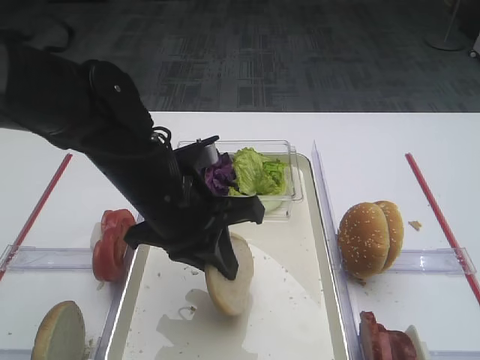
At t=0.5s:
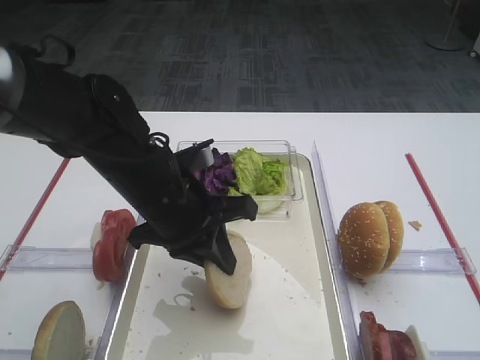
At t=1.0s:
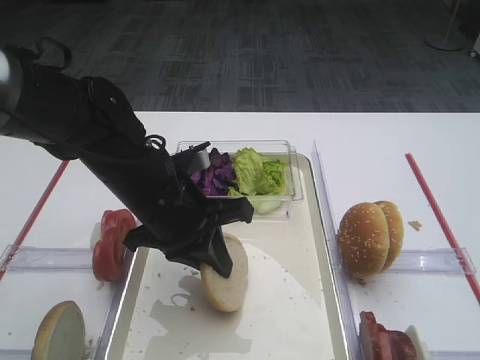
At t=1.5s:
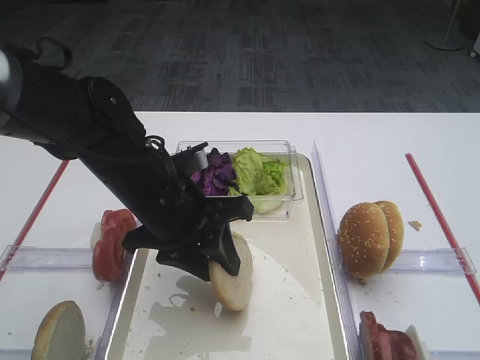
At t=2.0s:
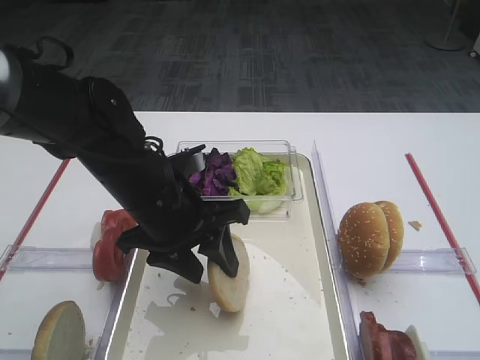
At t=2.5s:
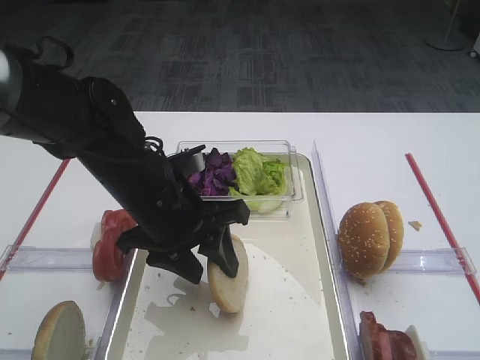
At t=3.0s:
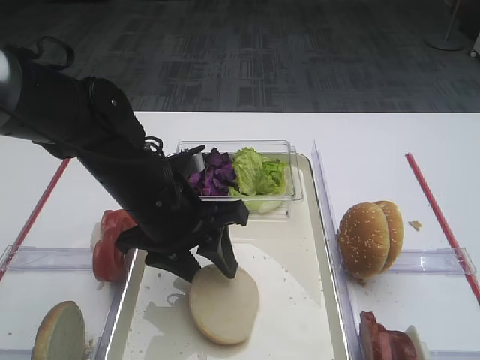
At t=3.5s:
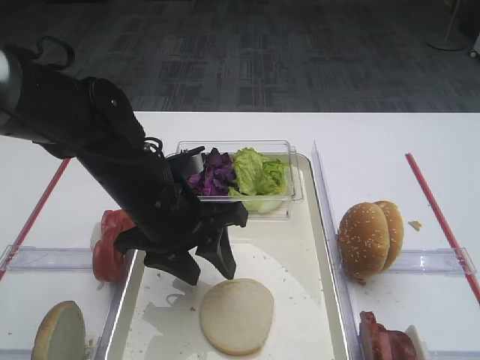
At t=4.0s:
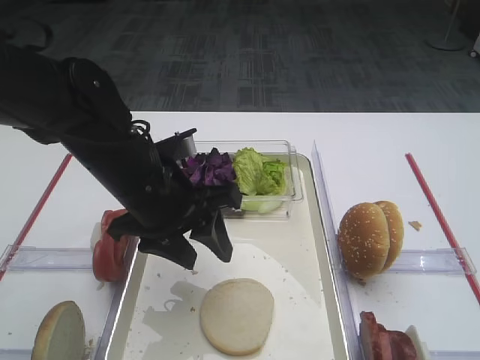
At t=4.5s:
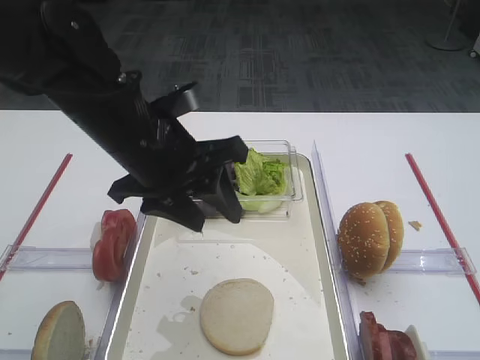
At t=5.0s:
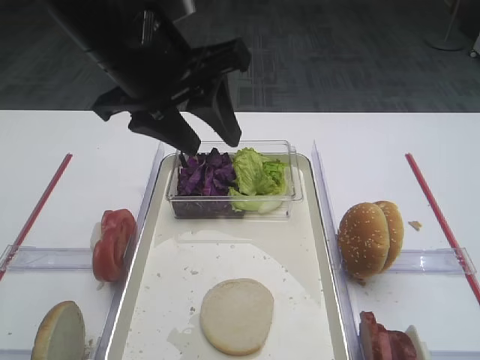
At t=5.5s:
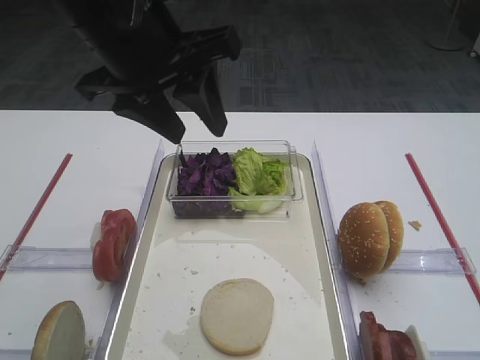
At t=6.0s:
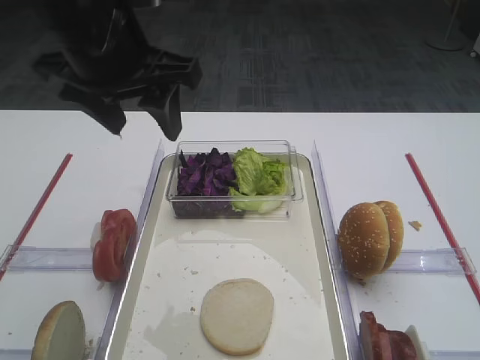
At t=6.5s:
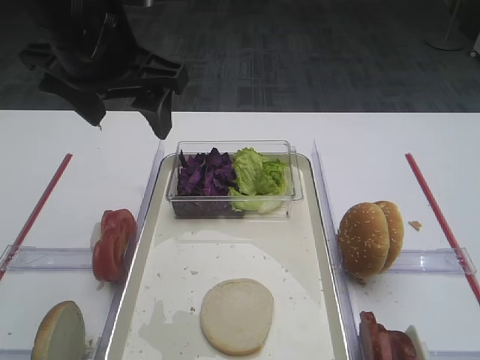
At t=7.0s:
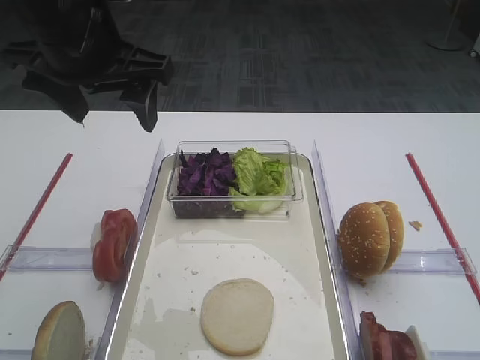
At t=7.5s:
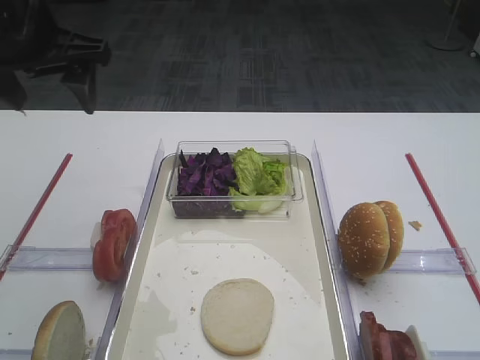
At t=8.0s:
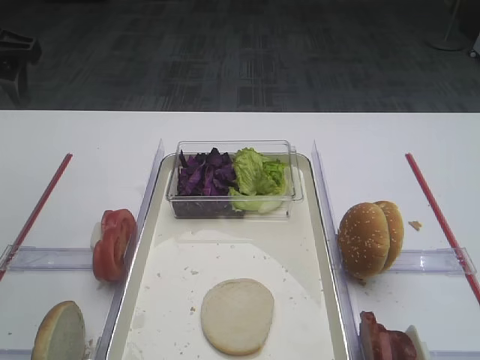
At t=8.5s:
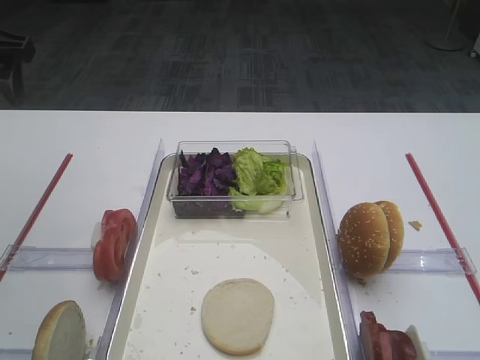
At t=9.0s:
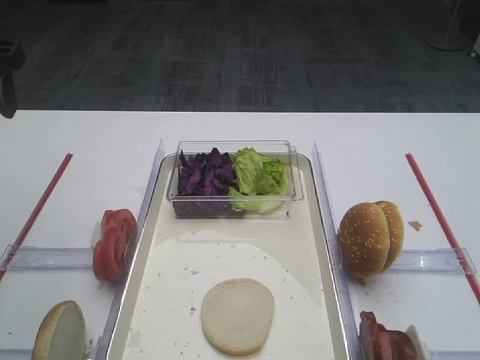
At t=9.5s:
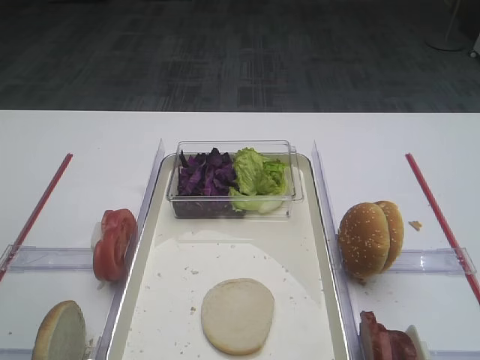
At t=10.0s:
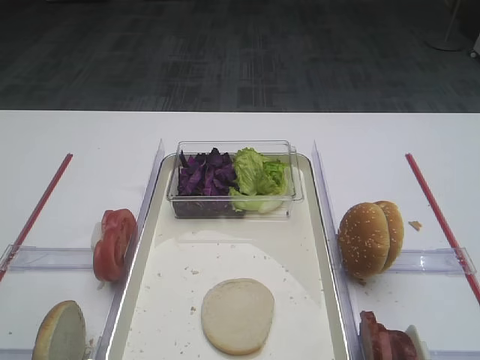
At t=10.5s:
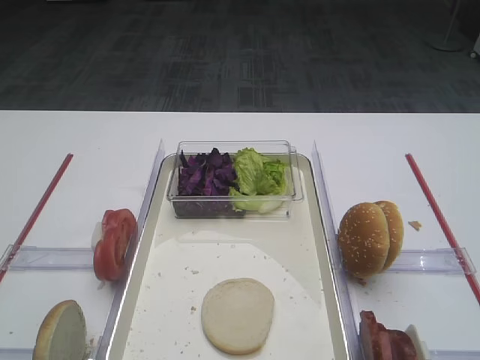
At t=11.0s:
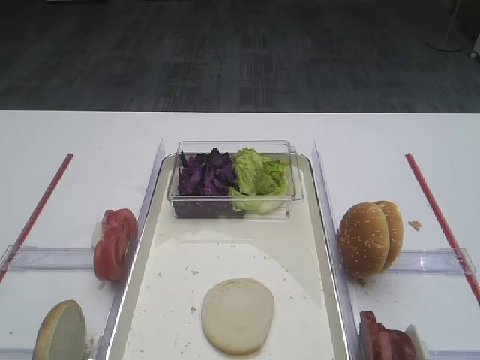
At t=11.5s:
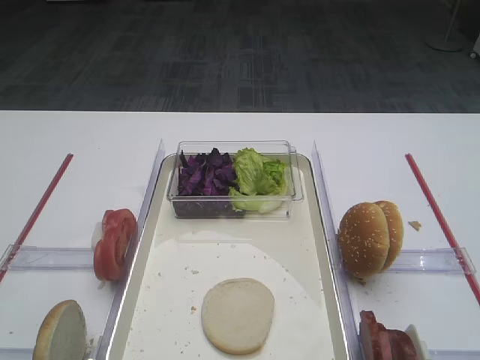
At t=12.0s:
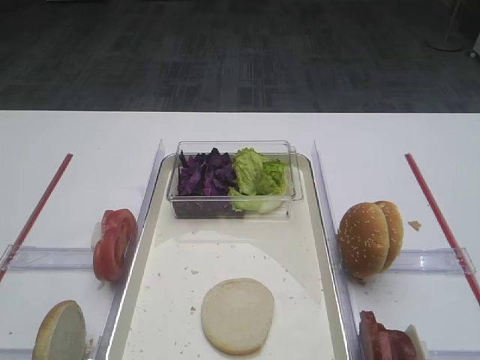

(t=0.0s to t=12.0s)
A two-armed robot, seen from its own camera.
Step, t=0.0s - t=4.0s: Place the bread slice on the tray with the left gripper.
t=0.0s - t=2.0s: The left gripper opens its fingers.
t=2.0s - t=4.0s: The grippers move only a little.
t=4.0s - t=6.0s: The left gripper is displaced upward by roughly 15 cm.
t=6.0s - t=8.0s: The left gripper goes approximately 15 cm to the left.
t=8.0s - t=10.0s: The left gripper shifts some 20 cm backward.

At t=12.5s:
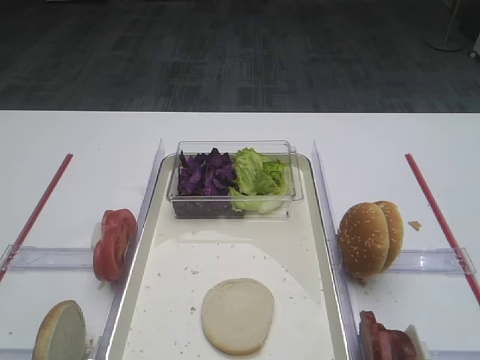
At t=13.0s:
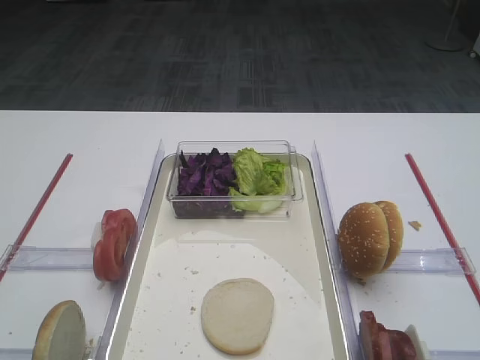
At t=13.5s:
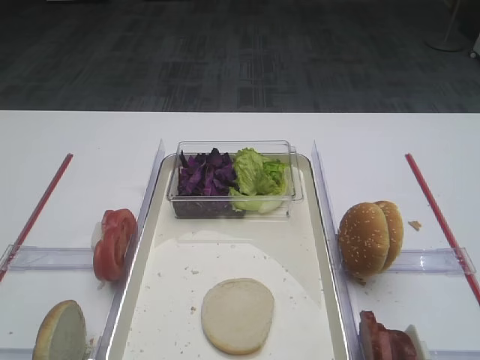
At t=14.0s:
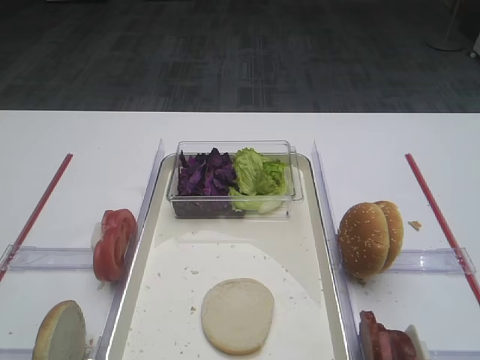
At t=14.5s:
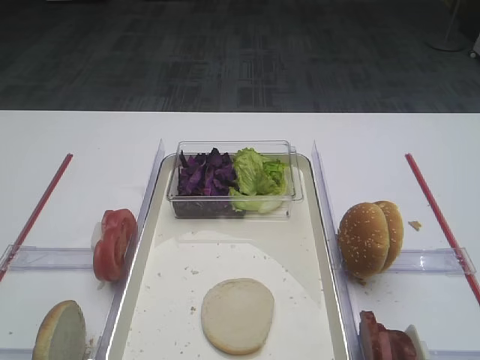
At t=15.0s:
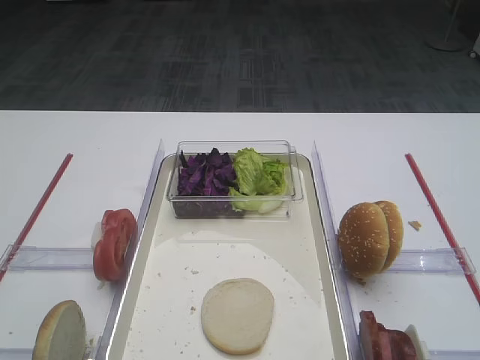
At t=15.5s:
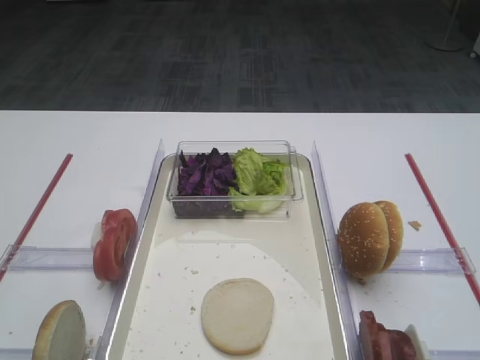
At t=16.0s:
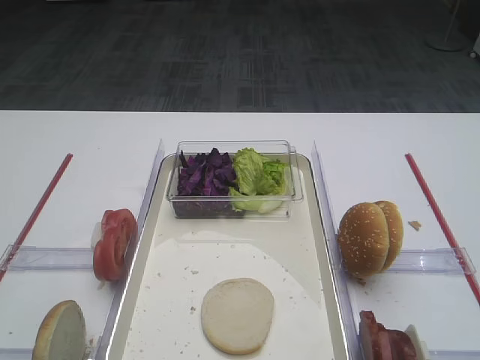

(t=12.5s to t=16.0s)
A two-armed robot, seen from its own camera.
t=12.5s - t=16.0s: Both grippers stay put.

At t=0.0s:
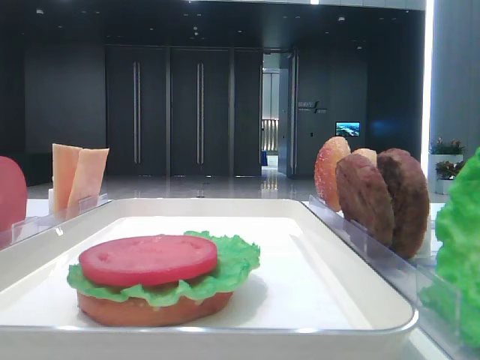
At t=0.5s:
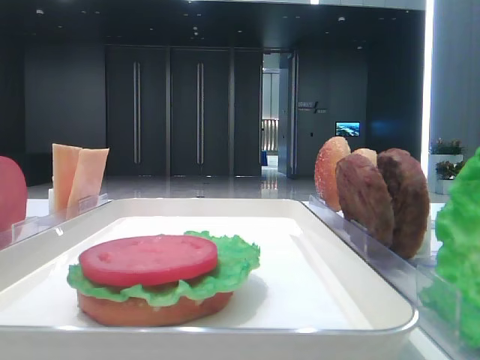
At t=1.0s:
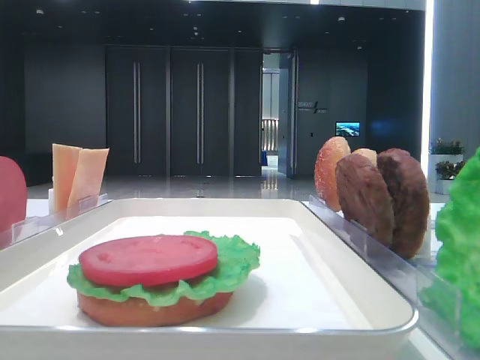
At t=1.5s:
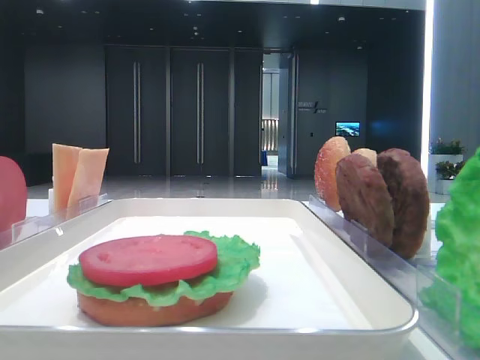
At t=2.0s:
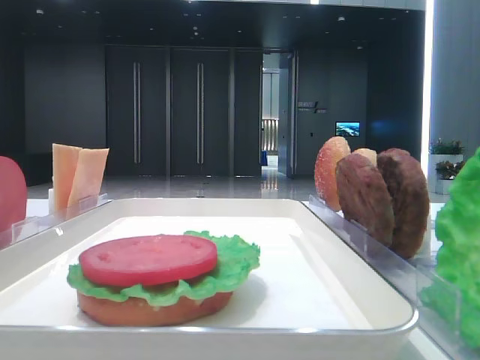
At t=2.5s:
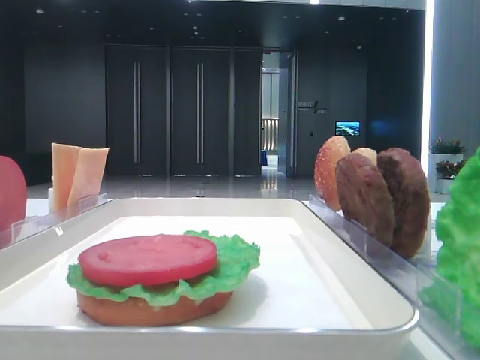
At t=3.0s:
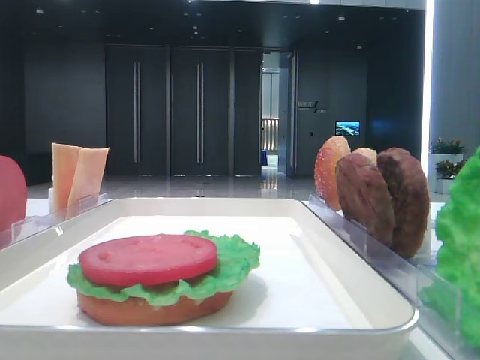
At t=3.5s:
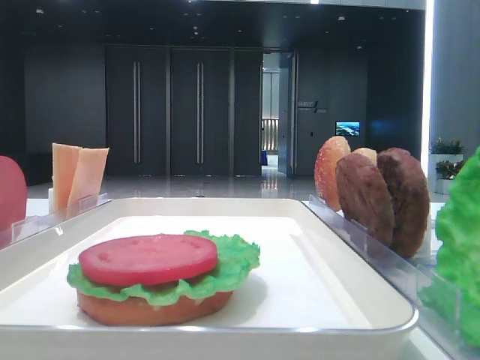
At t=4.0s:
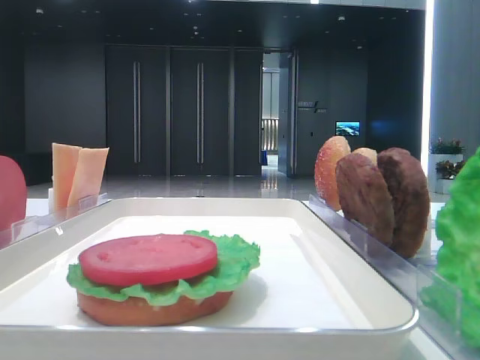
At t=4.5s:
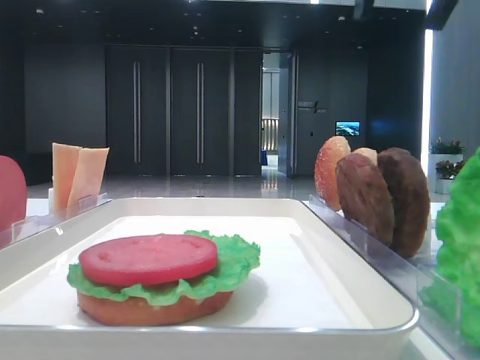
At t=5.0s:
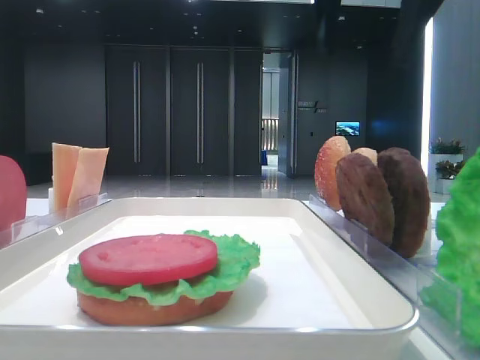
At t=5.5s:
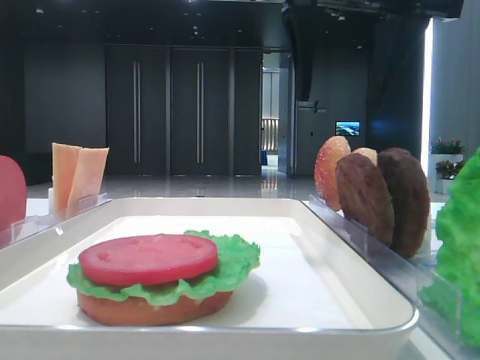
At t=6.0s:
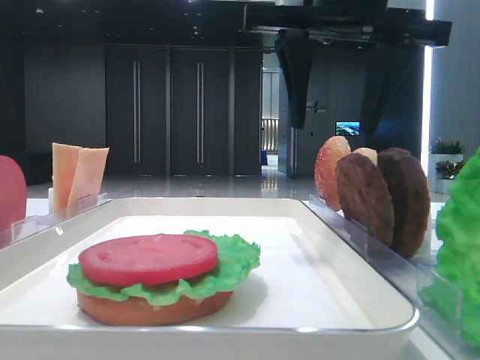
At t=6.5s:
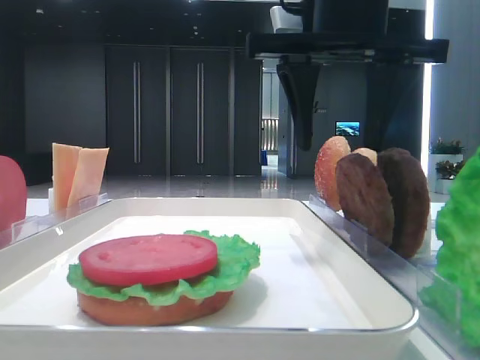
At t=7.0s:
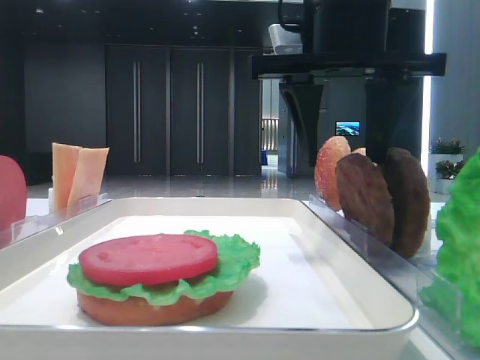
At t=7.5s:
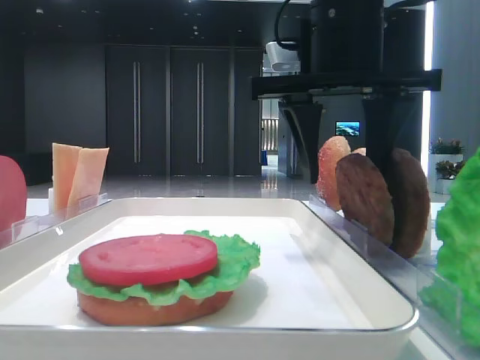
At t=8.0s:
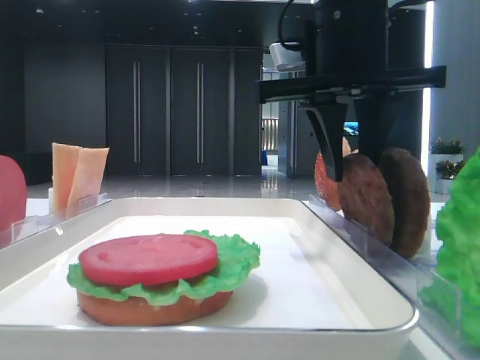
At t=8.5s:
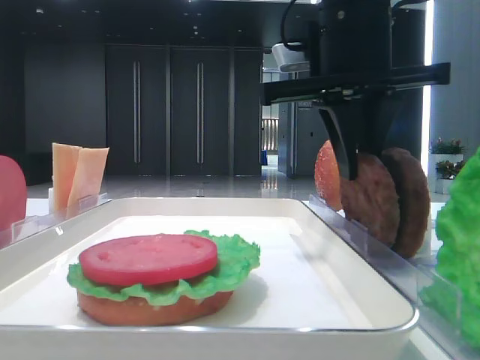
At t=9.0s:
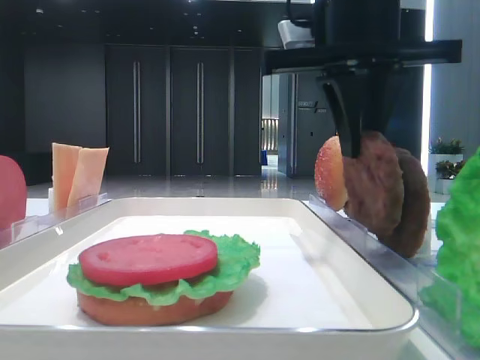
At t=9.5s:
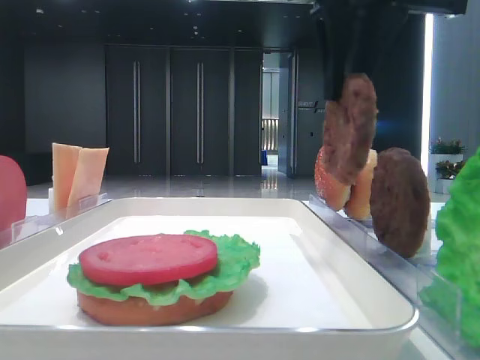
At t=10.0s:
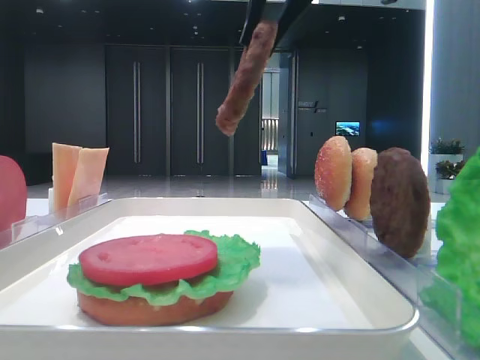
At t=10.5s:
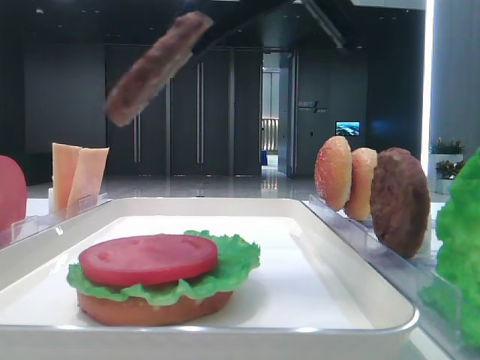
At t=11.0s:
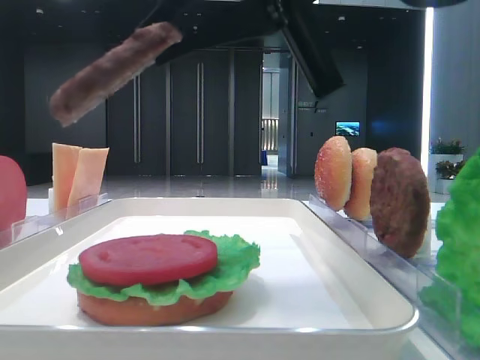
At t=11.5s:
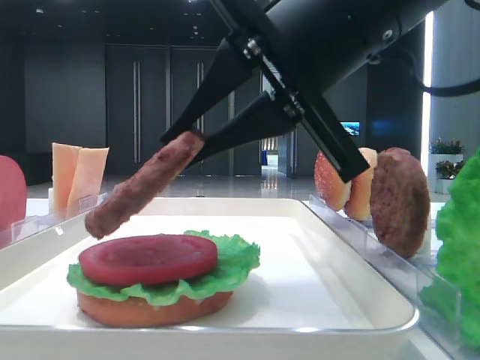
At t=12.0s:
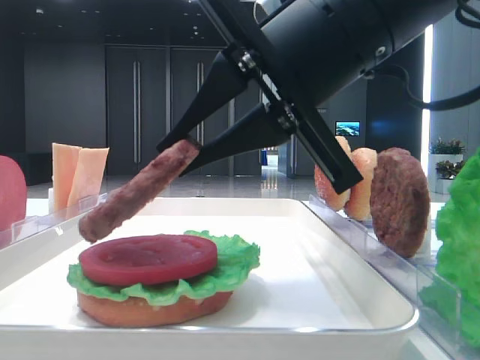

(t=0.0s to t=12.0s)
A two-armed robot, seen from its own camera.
Step, t=0.0s - t=8.5s: Grab the patty with the right hand.
t=4.0s - t=6.0s: The right gripper heads to the left and downward, covering roughly 20 cm.
t=6.0s - t=8.0s: The right gripper closes up.
t=8.0s - t=10.0s: The right gripper heads upward, covering approximately 10 cm.
t=10.0s - t=12.0s: The right gripper heads downward, covering about 10 cm.
